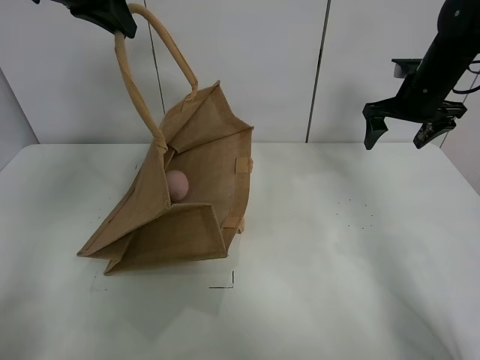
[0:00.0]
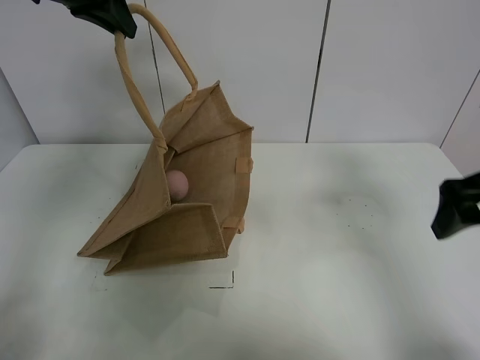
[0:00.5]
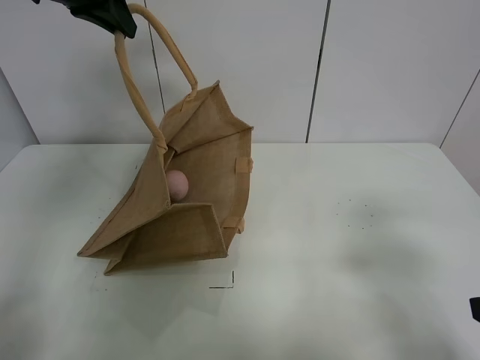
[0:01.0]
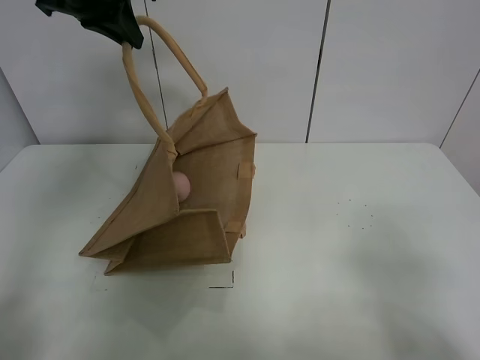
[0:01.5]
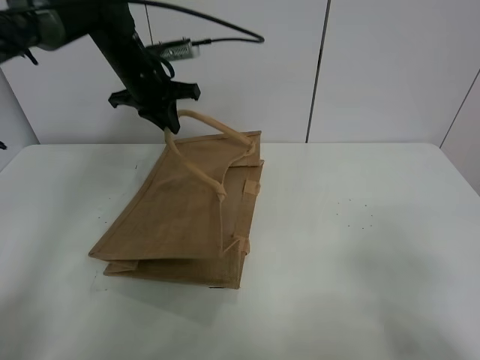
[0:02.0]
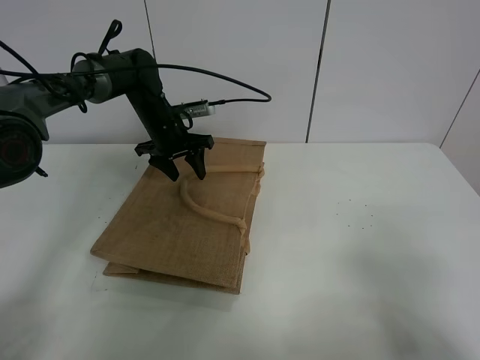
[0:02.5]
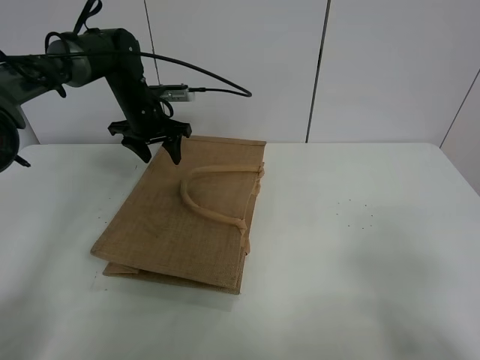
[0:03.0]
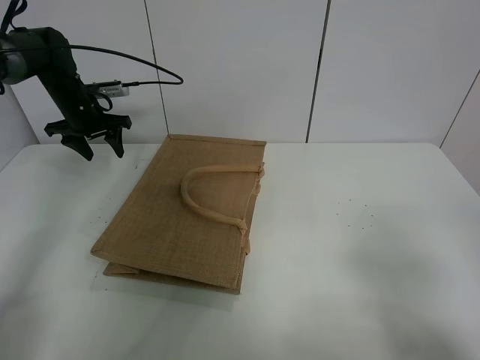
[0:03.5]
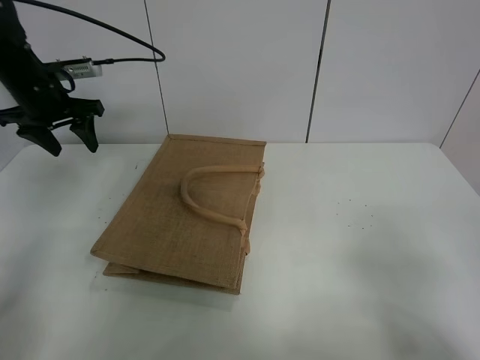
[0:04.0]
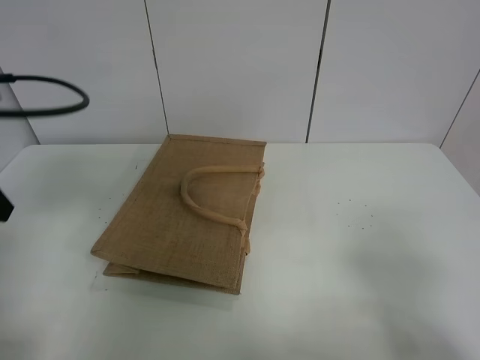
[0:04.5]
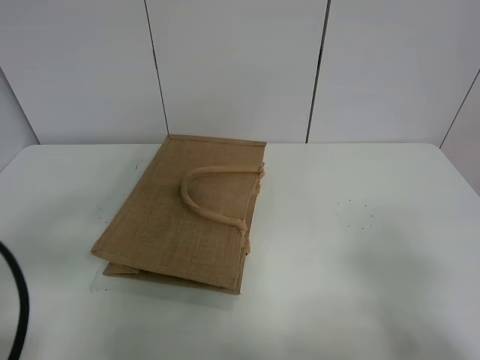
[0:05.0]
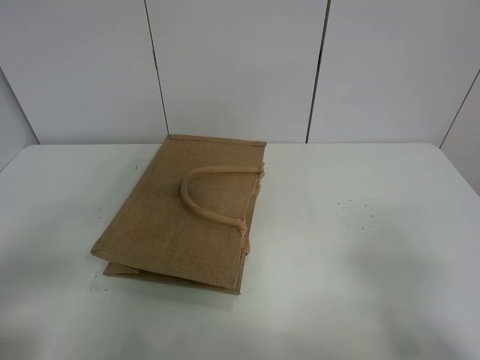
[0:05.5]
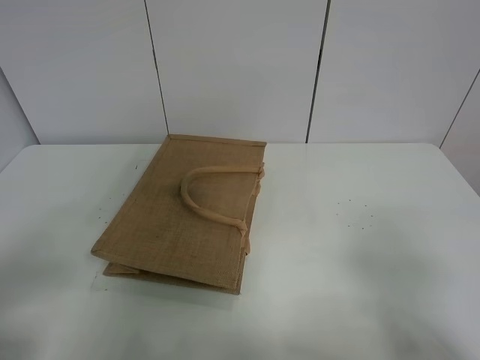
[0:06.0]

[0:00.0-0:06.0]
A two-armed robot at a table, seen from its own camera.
Task of the whole recording: open the brown linen bag and put the peach in the bag.
Step, 0:00.0 to 0:03.0: Put down the handbag with left grippe.
0:00.0 to 0:02.0: The left gripper goes some 15 cm downward and forward. Meanwhile the right gripper goes approximately 50 cm backward.
0:02.0 to 0:04.0: The left gripper goes about 15 cm to the left and downward, and opens up.
0:04.0 to 0:06.0: The left gripper moves backward, some 50 cm.
